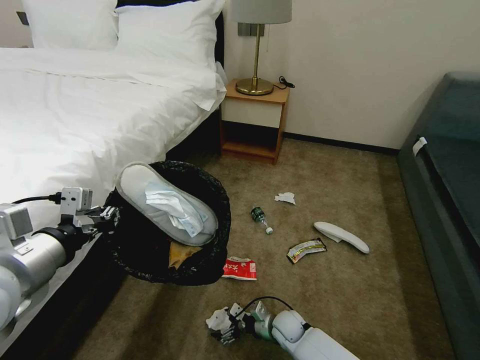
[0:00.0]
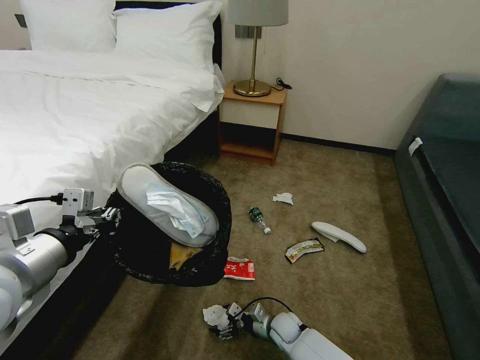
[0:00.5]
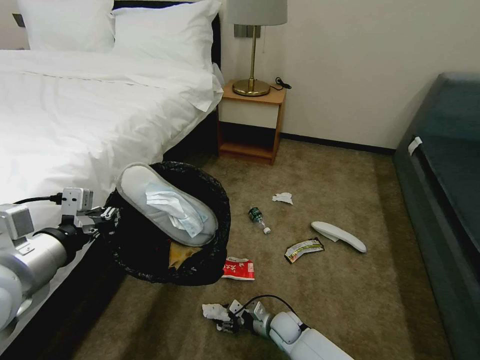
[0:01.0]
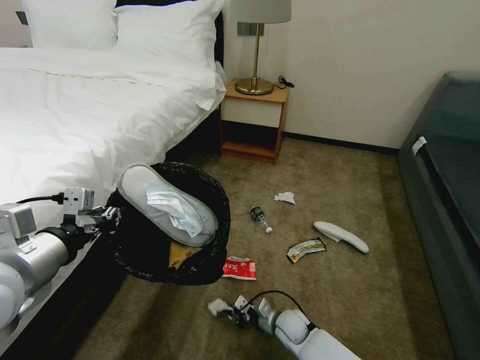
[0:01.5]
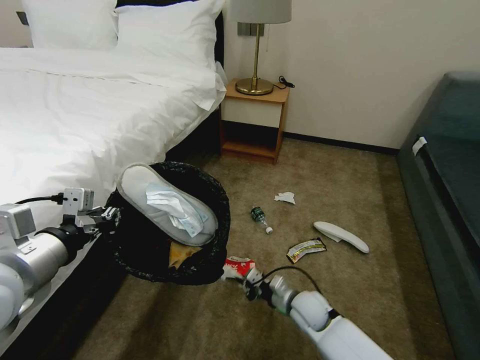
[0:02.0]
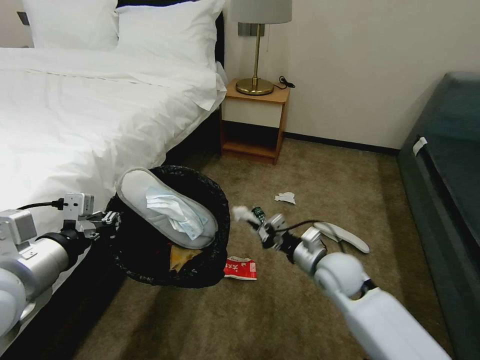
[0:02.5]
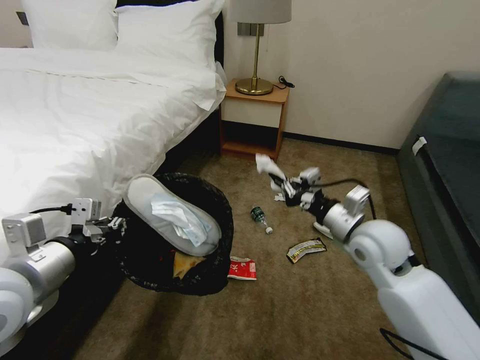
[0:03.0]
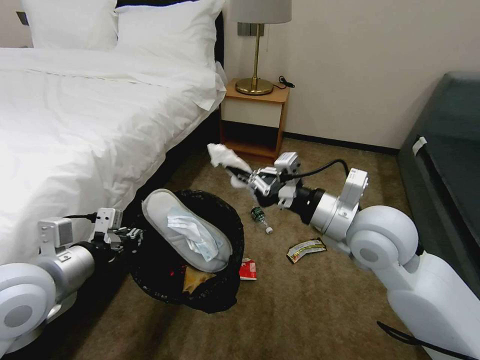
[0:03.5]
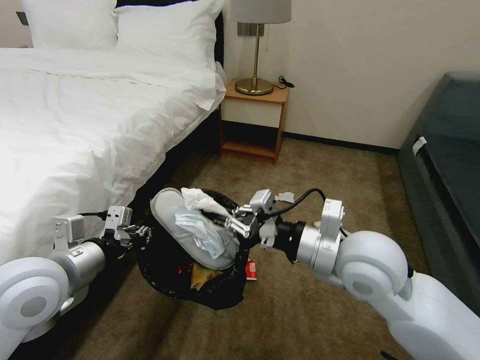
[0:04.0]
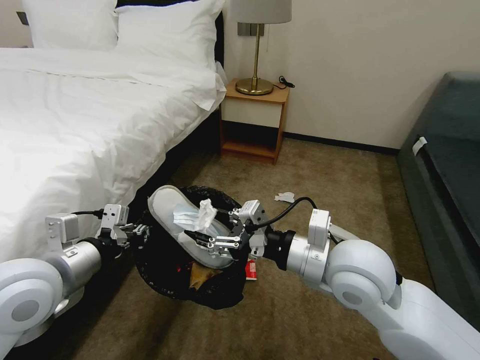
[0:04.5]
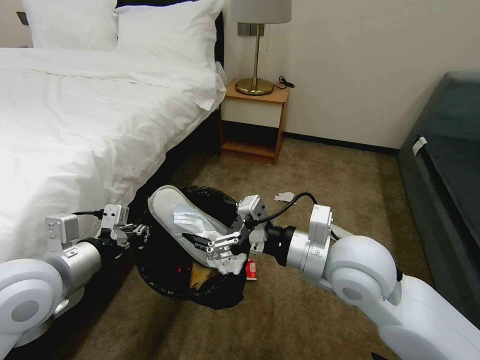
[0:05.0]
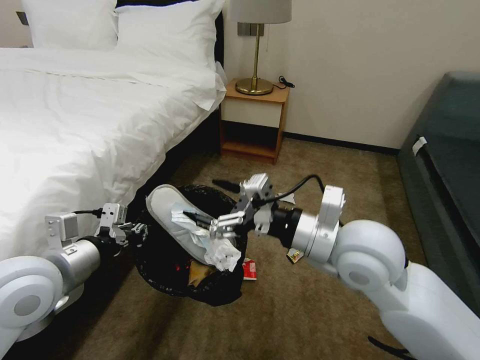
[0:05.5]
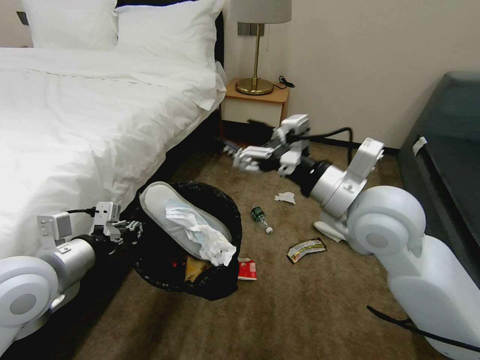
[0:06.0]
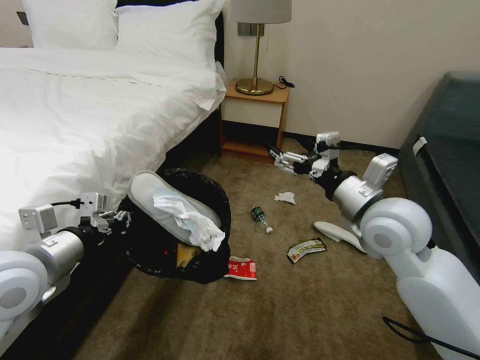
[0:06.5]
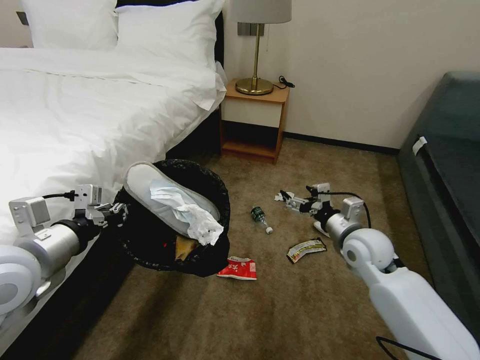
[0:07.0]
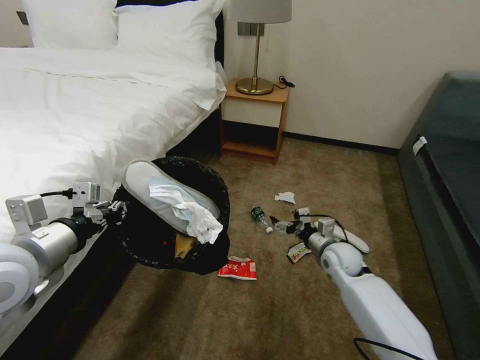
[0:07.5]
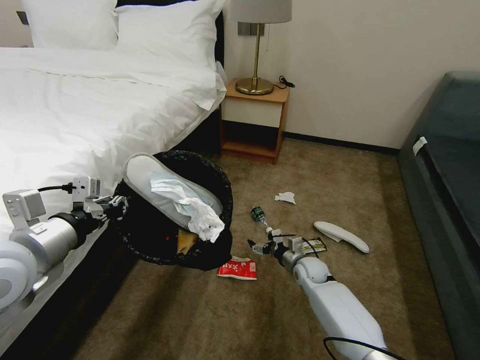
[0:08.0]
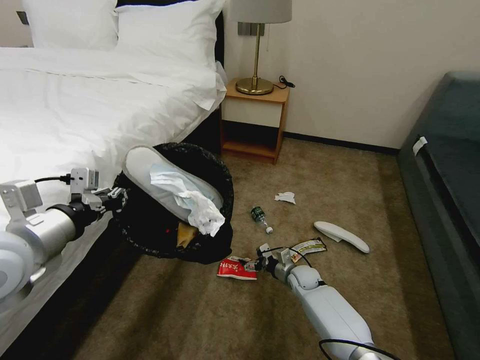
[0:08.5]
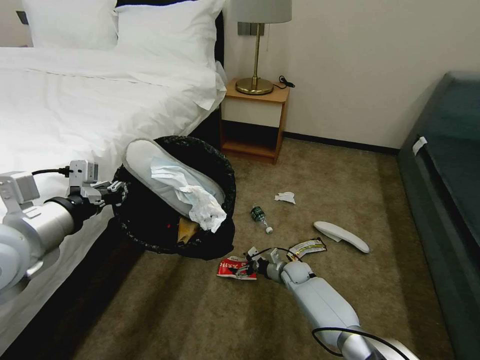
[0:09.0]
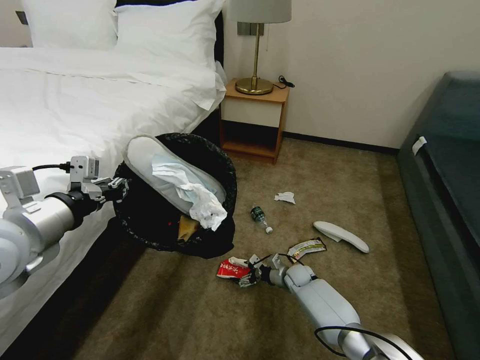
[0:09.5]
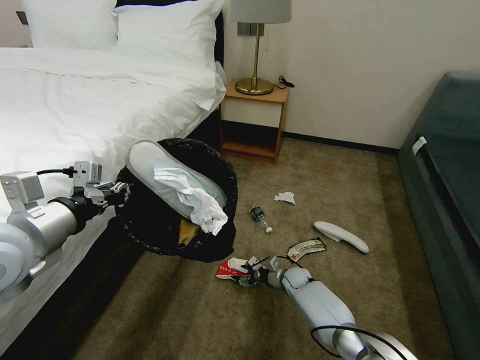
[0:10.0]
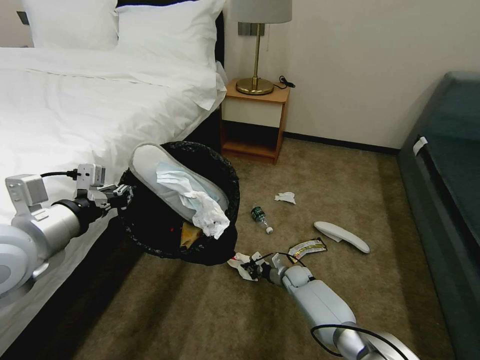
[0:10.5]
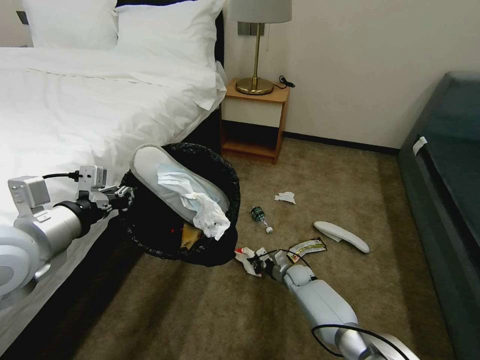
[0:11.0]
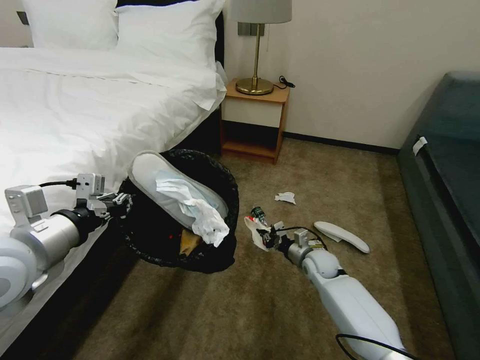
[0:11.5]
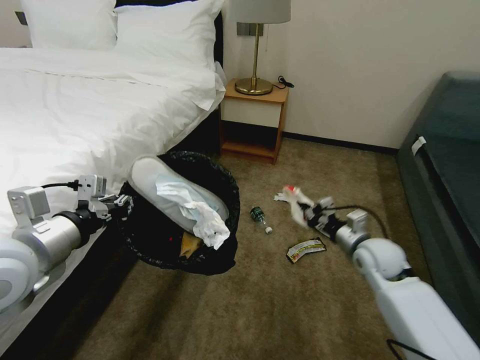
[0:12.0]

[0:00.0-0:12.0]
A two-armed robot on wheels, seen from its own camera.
Task of the whole recording: Pick up the trash bin, then pick up the garbage on the floor and place it into the trash bin.
0:00.0 to 0:02.0: The right gripper travels upward by about 10 cm, and closes up.
0:02.0 to 0:04.0: The left gripper moves about 5 cm. Meanwhile the right gripper goes about 30 cm upward.
0:04.0 to 0:06.0: The right gripper moves upward, approximately 5 cm, and opens its fingers.
0:06.0 to 0:08.0: The right gripper moves downward, roughly 40 cm.
0:08.0 to 0:10.0: The right gripper moves downward, approximately 10 cm, and closes its fingers.
0:10.0 to 0:12.0: The right gripper goes approximately 25 cm upward and to the right, and closes.

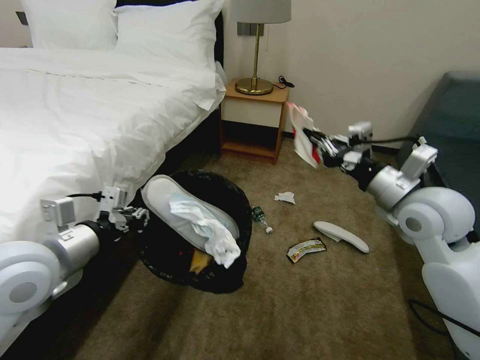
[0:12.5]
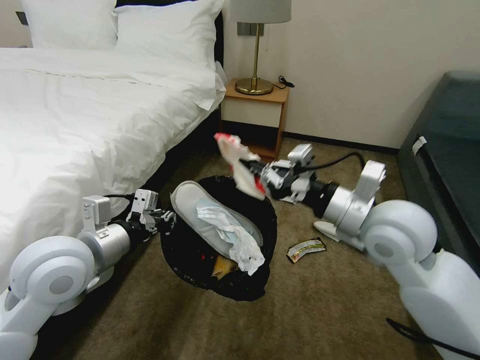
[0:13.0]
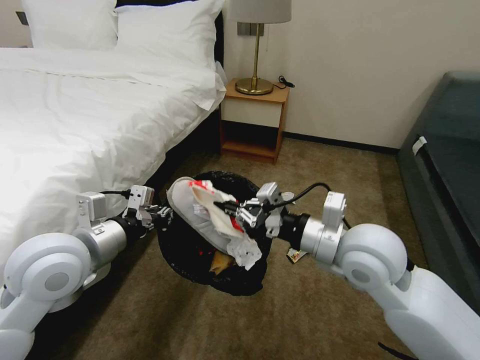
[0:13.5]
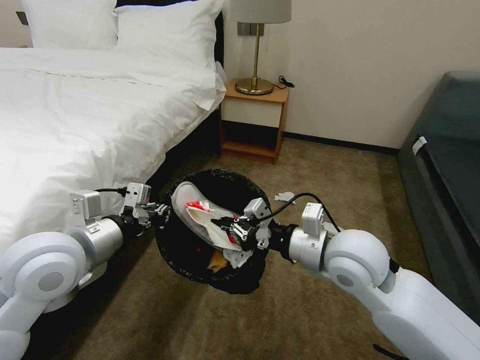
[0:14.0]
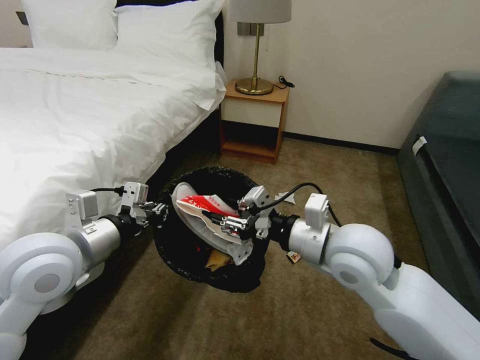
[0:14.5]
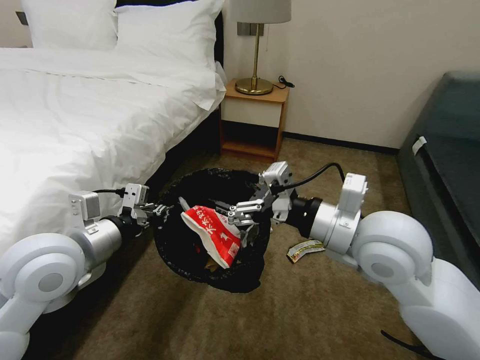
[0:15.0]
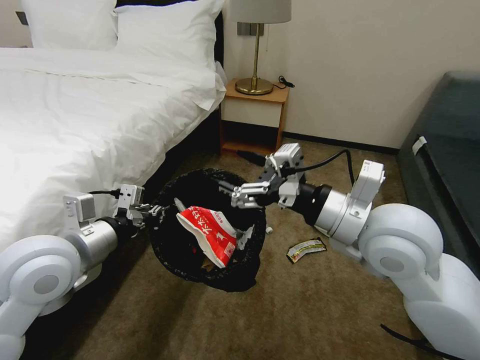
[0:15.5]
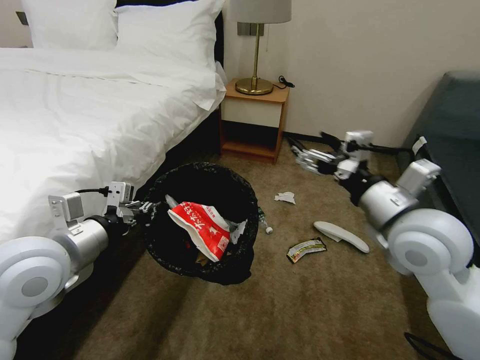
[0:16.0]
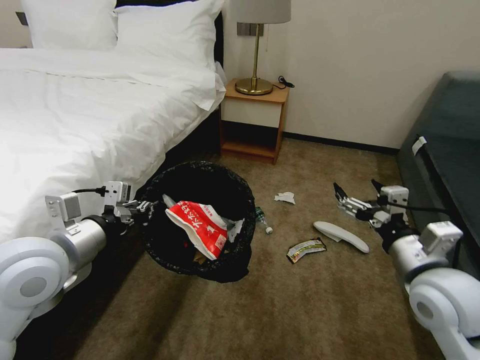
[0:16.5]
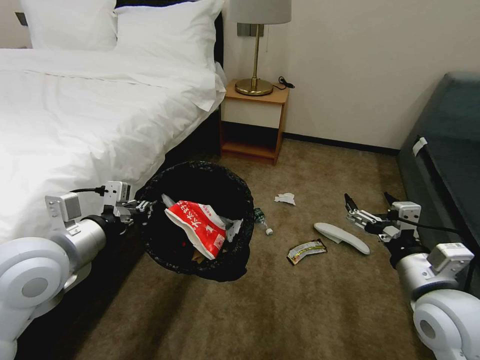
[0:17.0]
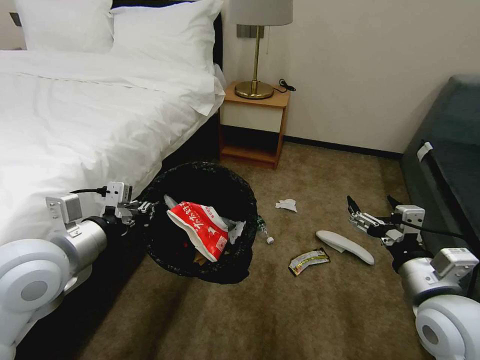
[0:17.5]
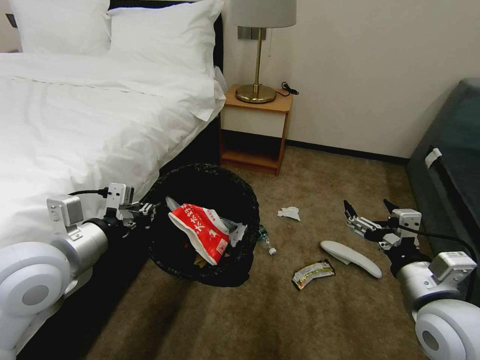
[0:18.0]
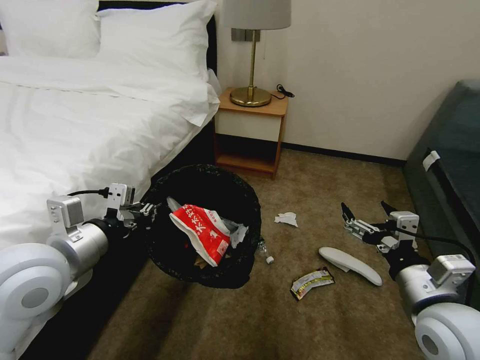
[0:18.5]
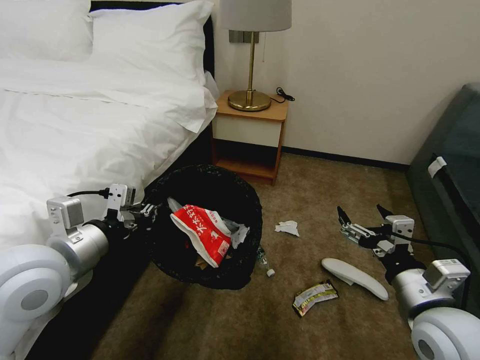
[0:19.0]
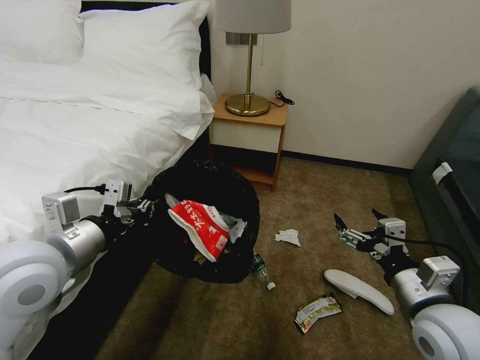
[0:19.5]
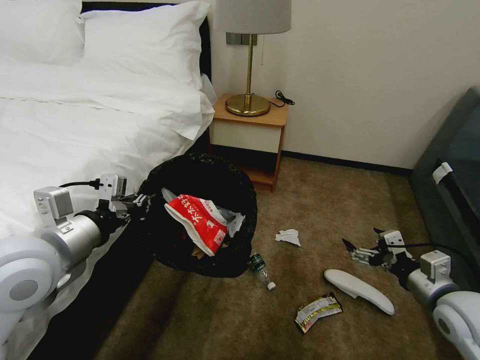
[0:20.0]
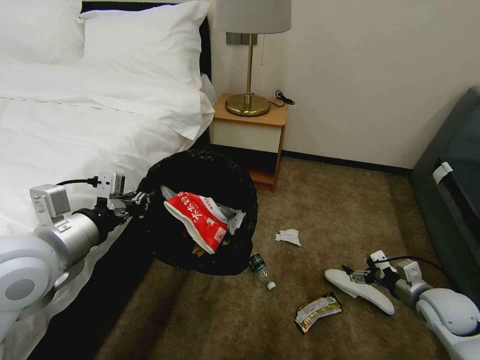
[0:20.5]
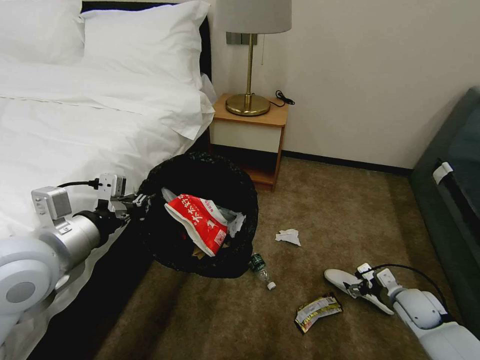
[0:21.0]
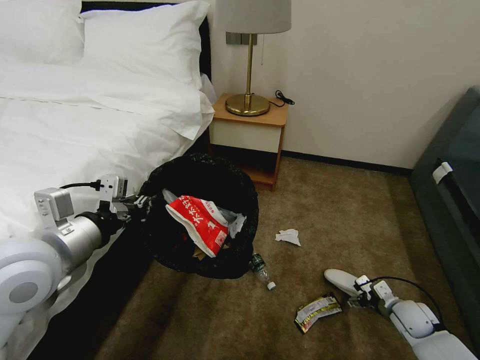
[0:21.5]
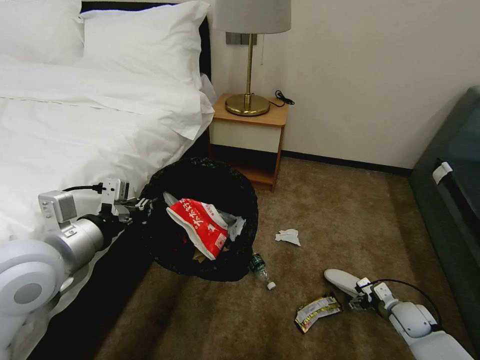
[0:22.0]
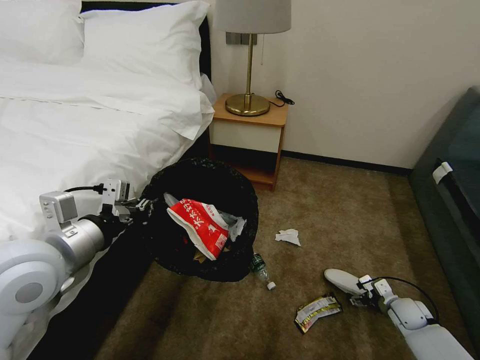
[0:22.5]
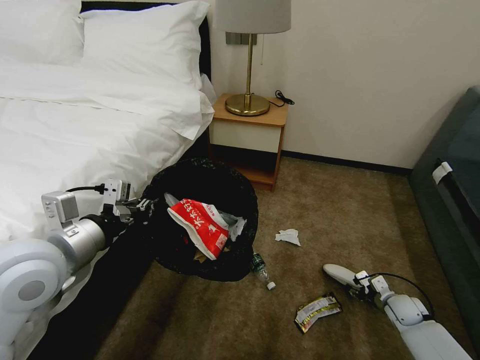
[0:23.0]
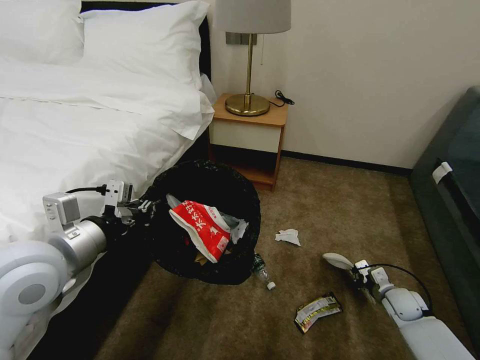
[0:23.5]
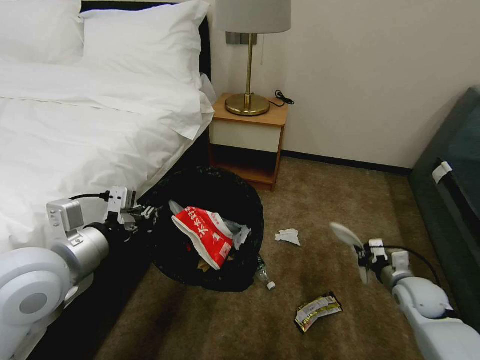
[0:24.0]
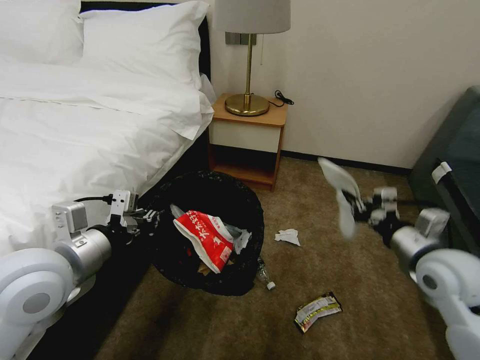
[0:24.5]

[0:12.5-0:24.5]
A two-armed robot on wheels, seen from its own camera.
Task of the whole recording: Pick up the trash bin, then pick up the garbage on the floor and place it into the trash bin.
0:12.5 to 0:14.5: The right gripper moves to the left and backward, roughly 15 cm, and opens up.
0:14.5 to 0:16.5: The right gripper is displaced to the right and backward by about 15 cm, and opens up.
0:16.5 to 0:18.5: The right gripper changes place by approximately 5 cm.
0:18.5 to 0:20.5: The right gripper goes about 20 cm to the right, downward and forward.
0:20.5 to 0:22.5: The right gripper is displaced downward by roughly 15 cm.
0:22.5 to 0:24.5: The right gripper travels upward by roughly 30 cm, and closes up.

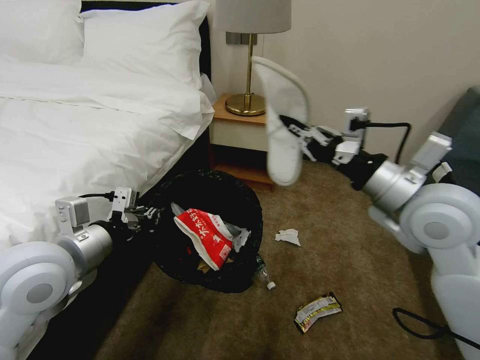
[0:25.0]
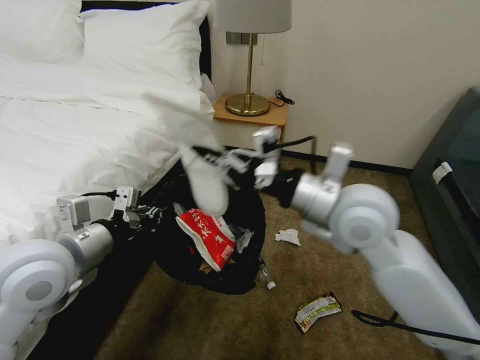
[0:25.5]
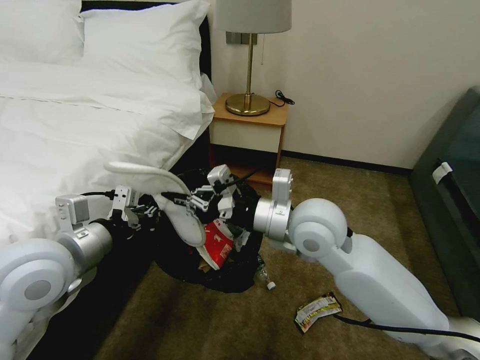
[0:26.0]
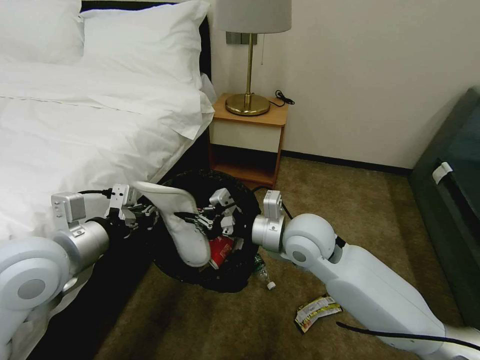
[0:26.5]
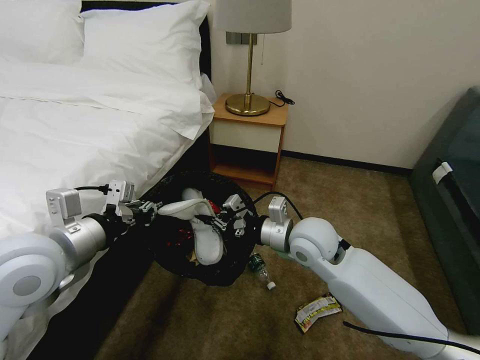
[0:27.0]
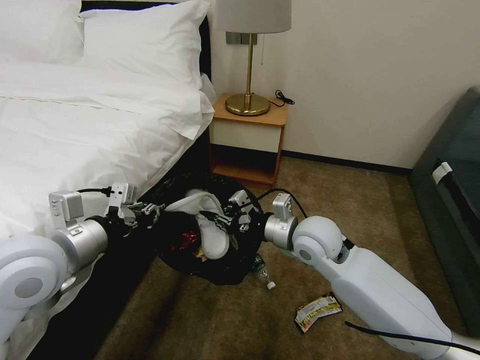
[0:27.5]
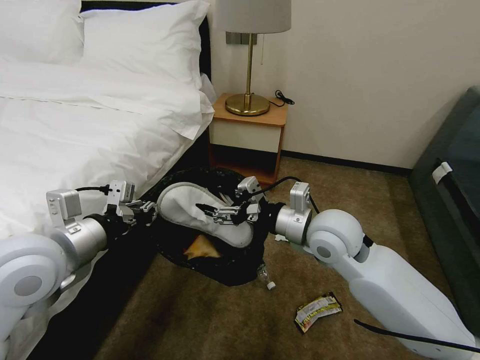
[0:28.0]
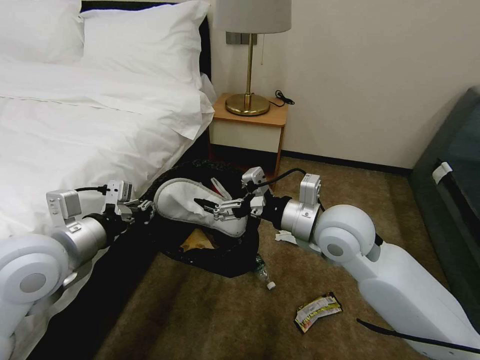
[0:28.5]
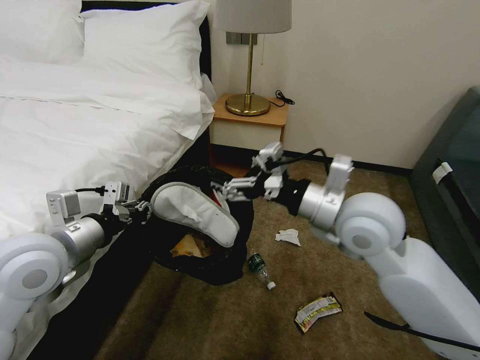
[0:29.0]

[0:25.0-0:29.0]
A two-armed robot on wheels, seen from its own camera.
Task of the whole recording: Pick up the trash bin, then pick up the garbage on the floor and place it into the trash bin.
0:25.0 to 0:27.0: The right gripper is displaced downward and to the left by some 20 cm.
0:27.0 to 0:29.0: The right gripper is displaced upward by about 10 cm, and opens.
